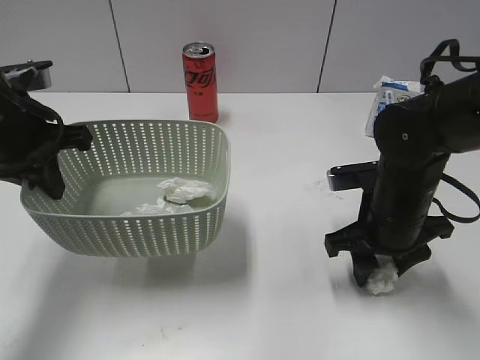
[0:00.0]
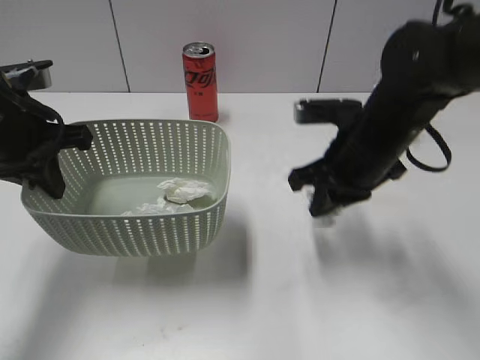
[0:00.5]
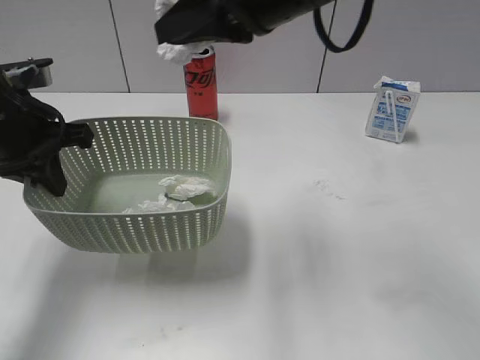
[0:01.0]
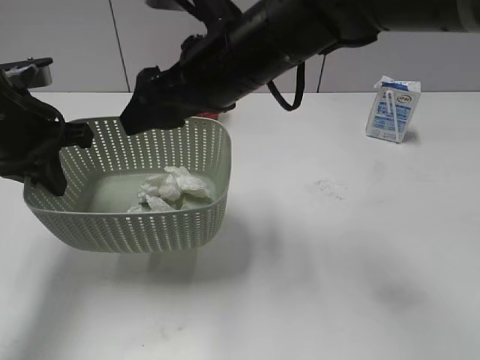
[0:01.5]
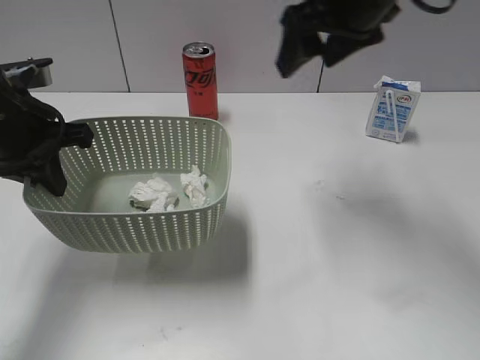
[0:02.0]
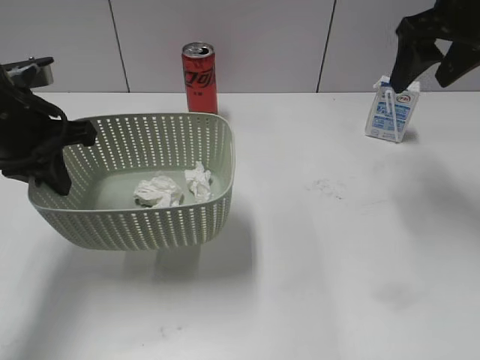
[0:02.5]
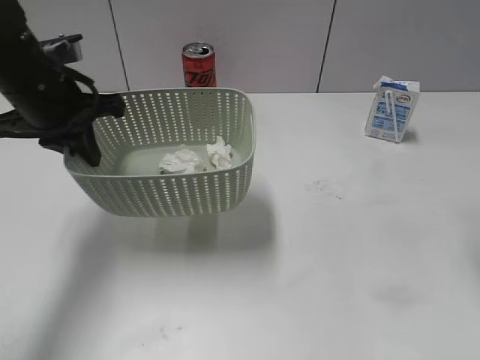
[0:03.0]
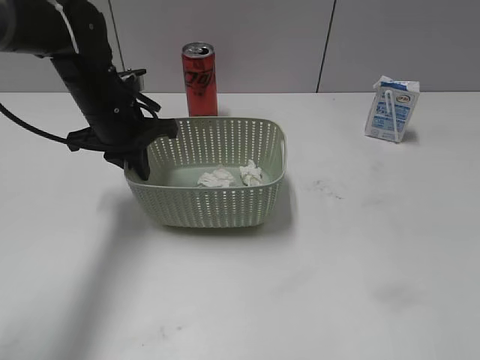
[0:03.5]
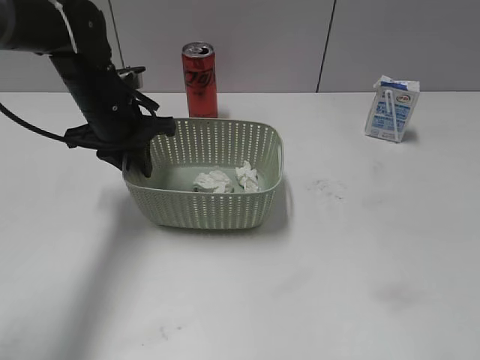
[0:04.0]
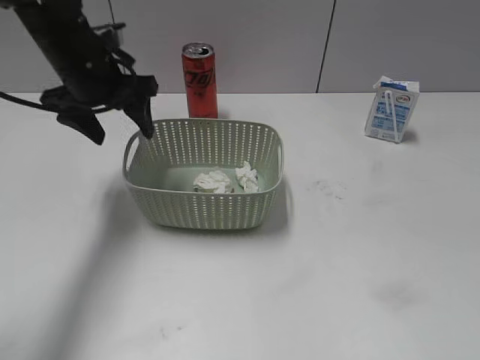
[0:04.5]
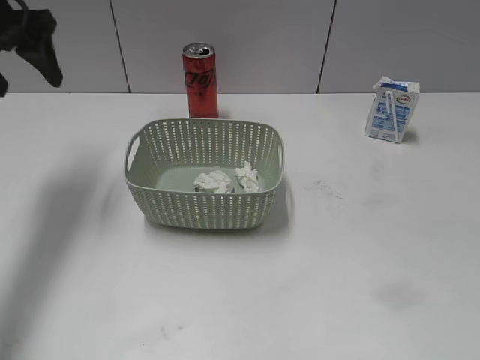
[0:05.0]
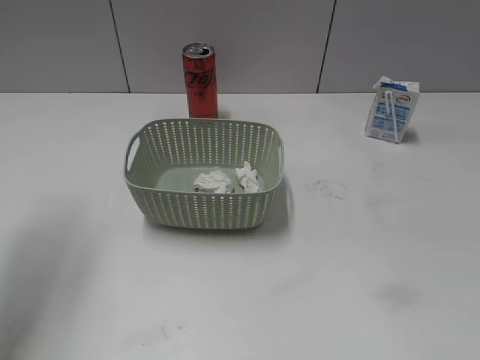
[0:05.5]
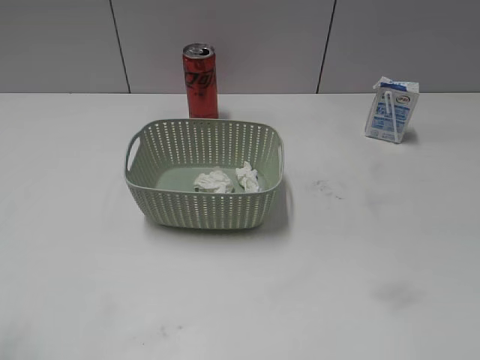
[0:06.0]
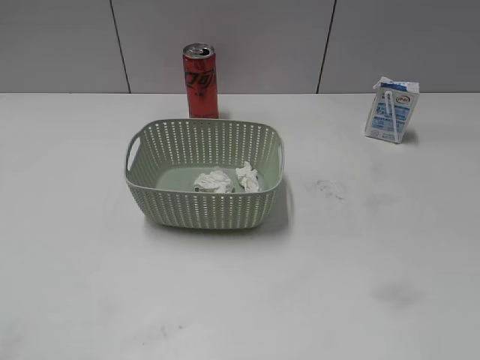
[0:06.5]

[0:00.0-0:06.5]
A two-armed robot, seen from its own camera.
Step, 0:00.5 to 0:01.5: Place the waste paper in the basket with right gripper.
Step, 0:02.0 to 0:04.0: Place the basket on the table with left gripper.
0:00.0 to 0:02.0: The right gripper swings up and down, about 20 cm each way, with 2 reversals, and closes, then opens again.
0:02.0 to 0:04.5: The left gripper is displaced forward and to the right by approximately 10 cm, and opens its fingers. Meanwhile the right gripper travels backward and to the right by roughly 40 cm.
0:04.5 to 0:06.5: The left gripper travels backward by approximately 40 cm.
